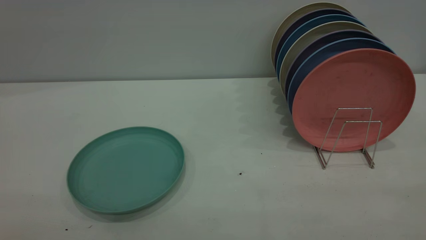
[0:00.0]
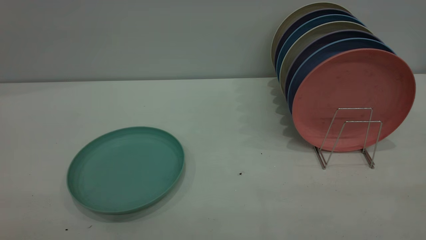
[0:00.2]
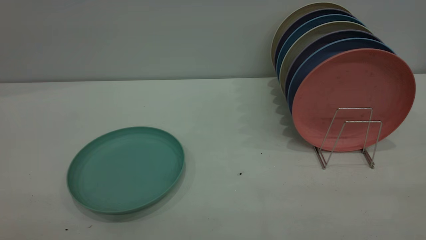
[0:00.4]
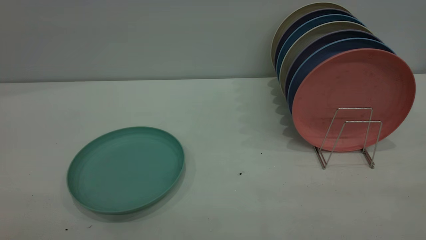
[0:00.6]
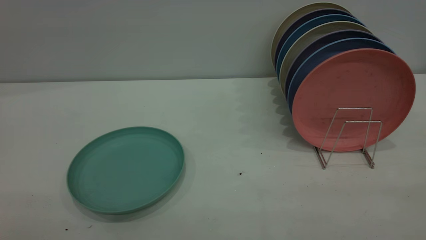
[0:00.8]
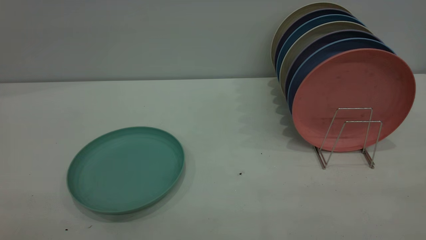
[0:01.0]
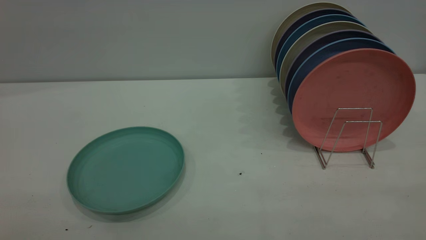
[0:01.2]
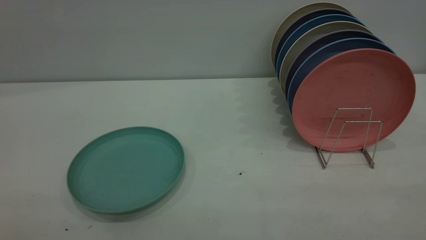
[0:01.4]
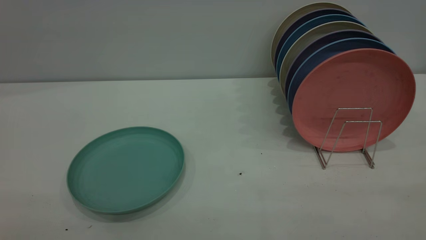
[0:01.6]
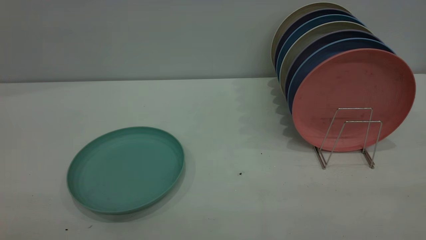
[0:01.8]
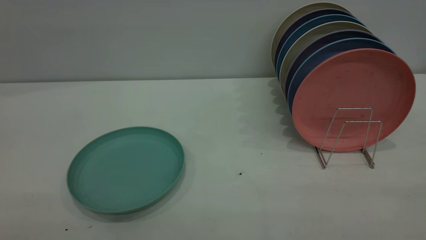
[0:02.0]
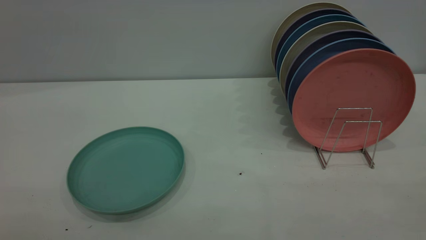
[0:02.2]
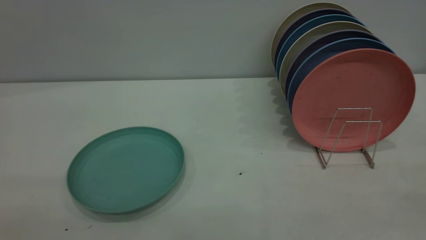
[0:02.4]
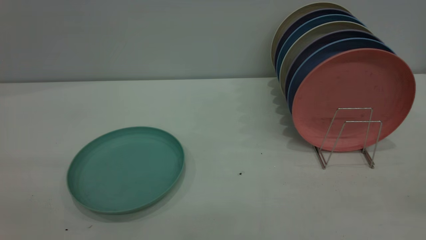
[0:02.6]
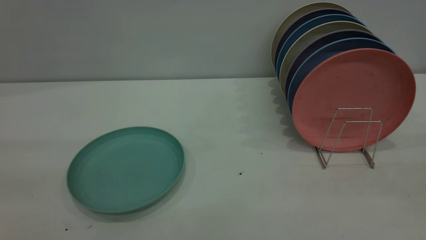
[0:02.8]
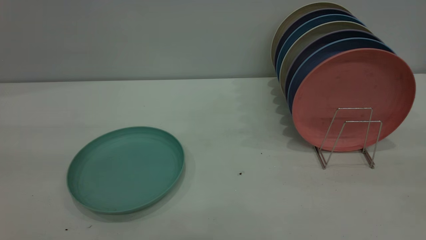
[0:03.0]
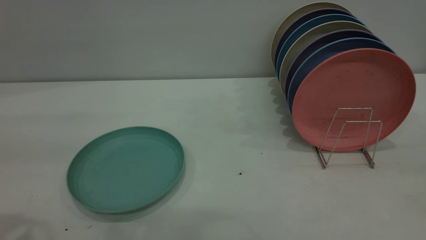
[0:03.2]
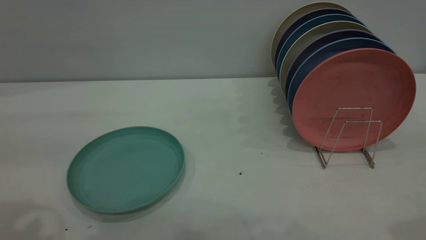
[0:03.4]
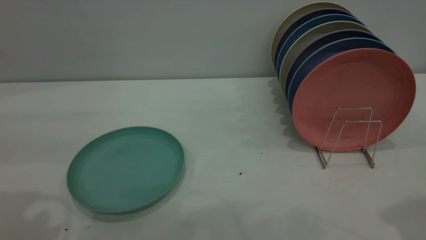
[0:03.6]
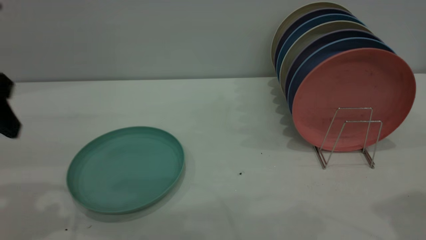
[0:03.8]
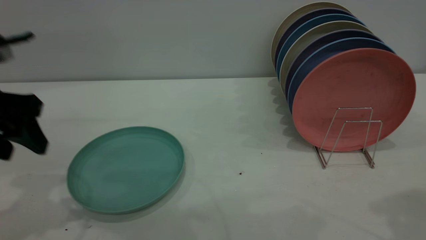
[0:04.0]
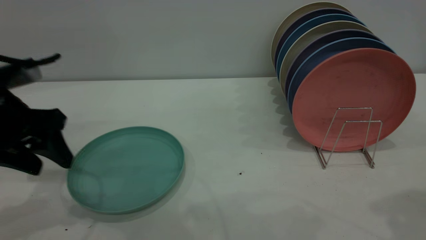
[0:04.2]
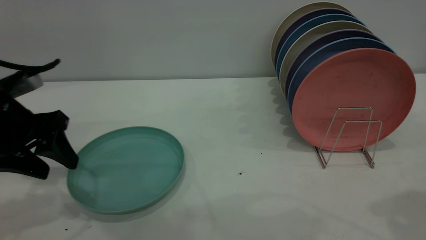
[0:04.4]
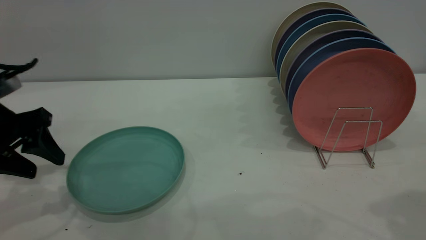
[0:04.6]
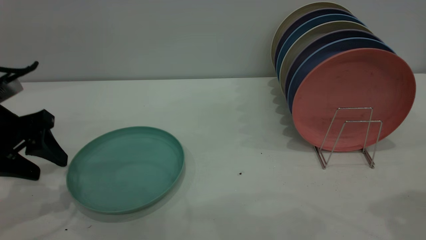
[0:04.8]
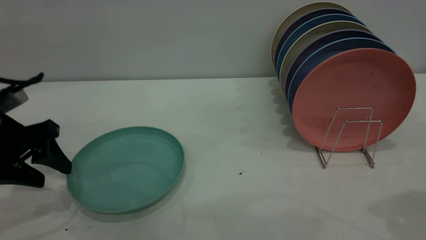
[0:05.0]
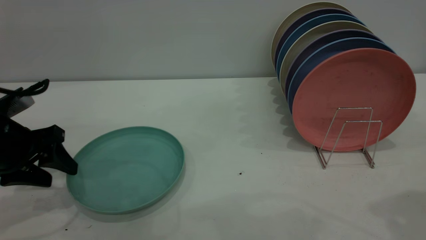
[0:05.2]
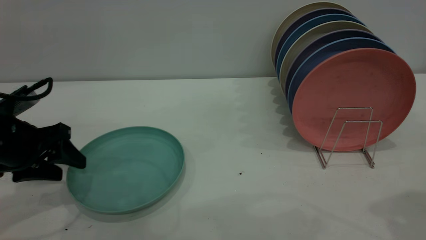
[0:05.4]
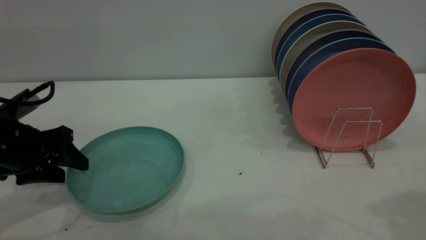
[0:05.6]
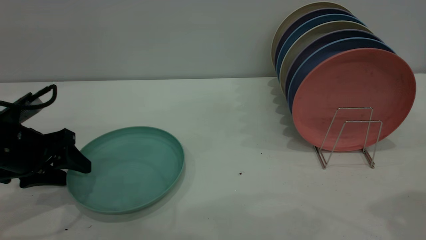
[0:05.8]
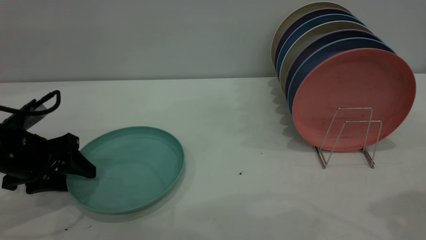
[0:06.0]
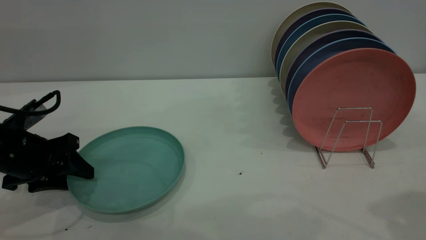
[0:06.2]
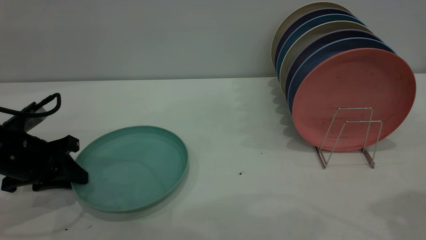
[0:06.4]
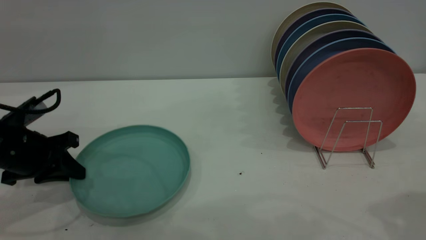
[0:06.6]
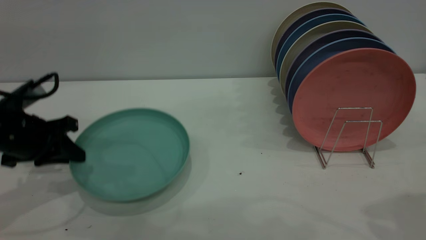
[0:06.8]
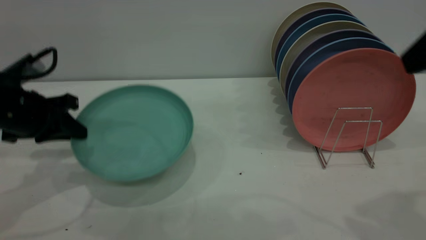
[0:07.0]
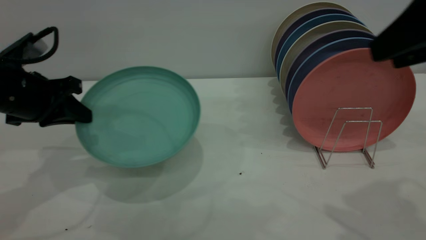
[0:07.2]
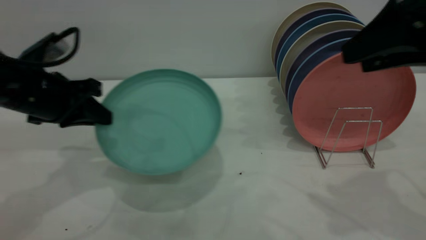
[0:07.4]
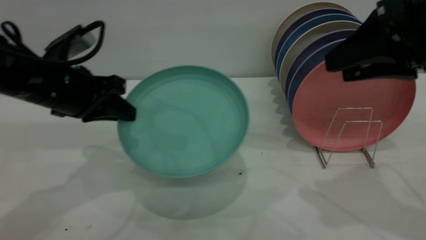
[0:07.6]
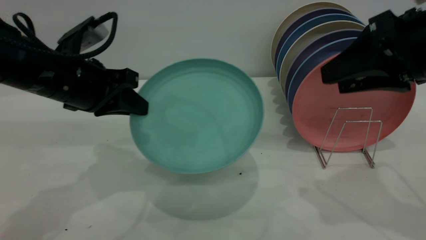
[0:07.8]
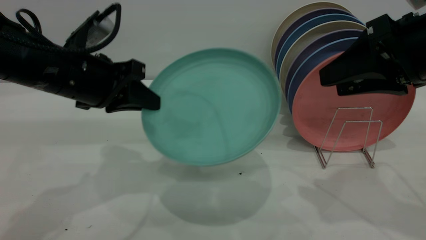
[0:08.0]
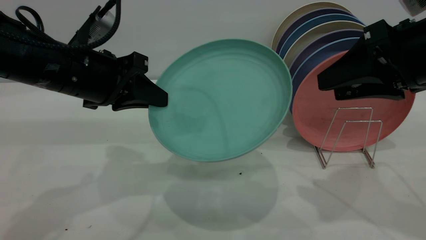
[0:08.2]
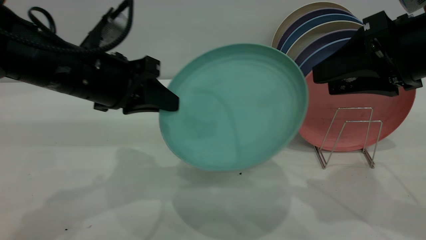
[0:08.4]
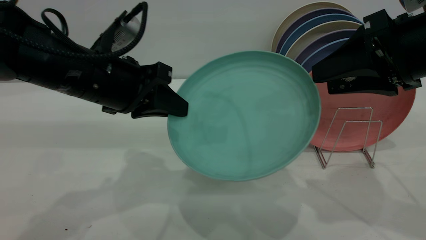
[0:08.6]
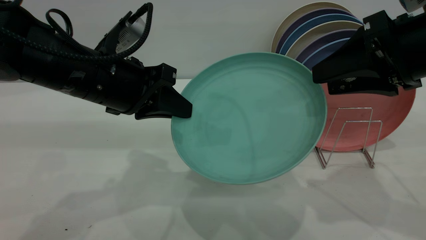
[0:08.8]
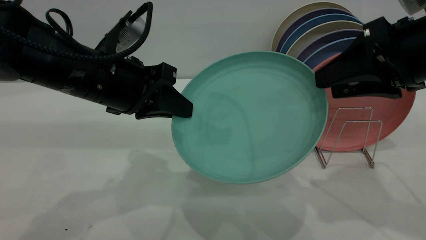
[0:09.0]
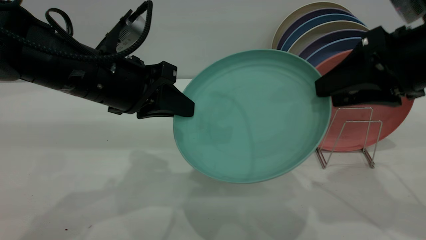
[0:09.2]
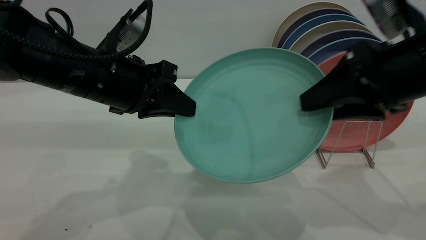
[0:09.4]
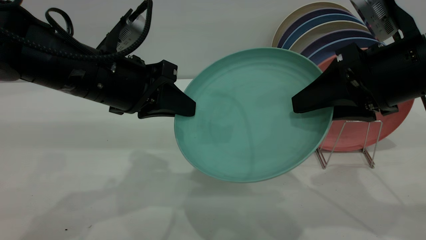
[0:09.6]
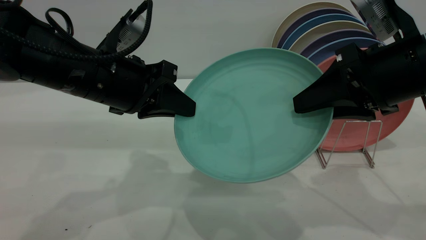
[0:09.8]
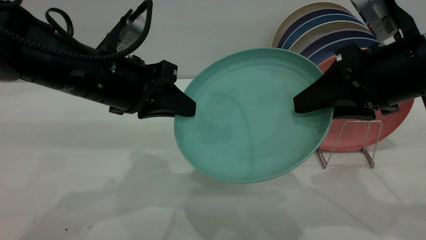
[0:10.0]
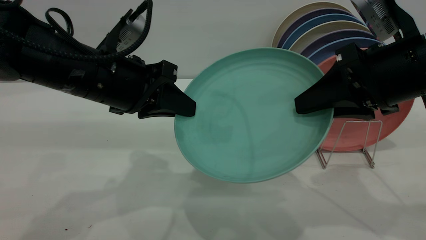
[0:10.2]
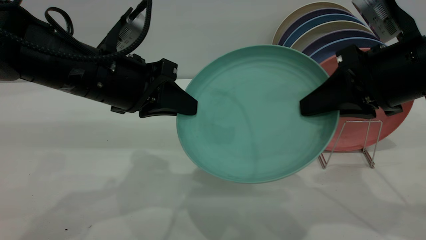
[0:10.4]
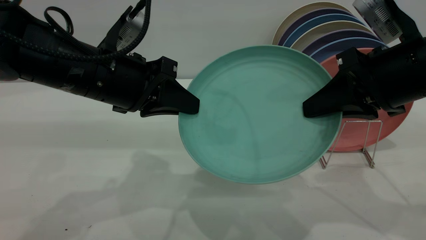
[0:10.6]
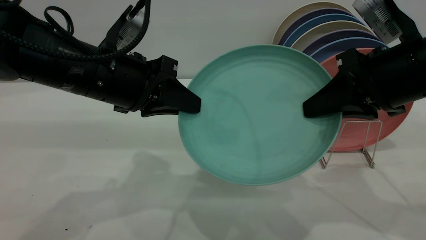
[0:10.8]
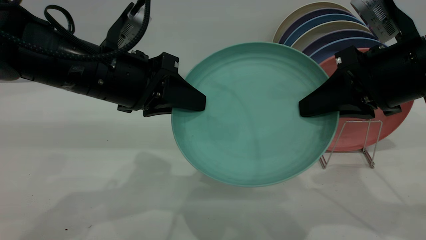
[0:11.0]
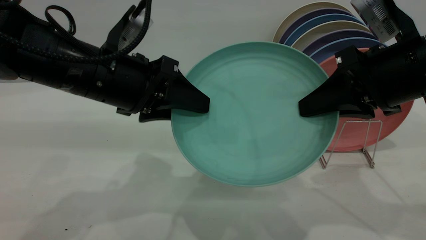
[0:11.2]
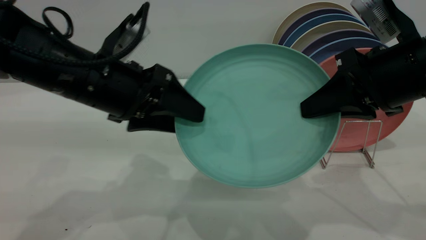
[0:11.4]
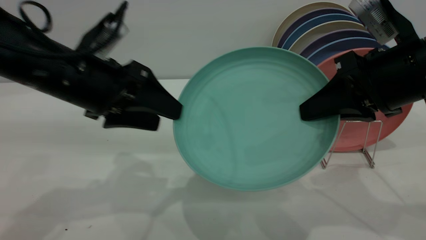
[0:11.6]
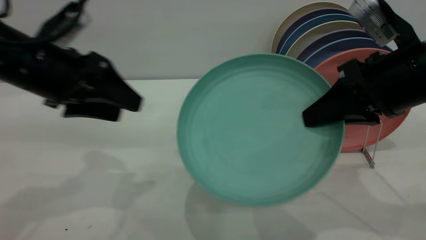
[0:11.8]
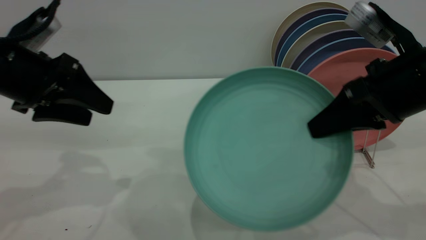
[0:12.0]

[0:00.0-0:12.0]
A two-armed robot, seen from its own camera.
Task of the whole recording: the left gripper grasp the green plate, the left gripper pass the green plate to the right gripper, and the right gripper place the green plate on the plate rack.
Step, 0:00.0 to 0:06.8: Pick up the plate with the left gripper.
Step, 0:07.0 to 0:12.0: Pass the plate from the left gripper to the right gripper.
0:00.0 to 0:01.6: Both grippers stay about where they are.
0:03.0 to 0:04.4: The left gripper moves downward and forward, approximately 25 cm.
0:04.4 to 0:06.0: The left gripper is displaced downward by approximately 10 cm.
0:06.0 to 0:07.6: The right gripper goes some 10 cm forward and downward. Meanwhile the left gripper travels upward and to the right by approximately 10 cm, and closes its fingers.
0:07.6 to 0:09.0: The left gripper travels to the right by about 5 cm.
0:09.0 to 0:10.4: The right gripper closes.
0:10.4 to 0:12.0: The left gripper goes approximately 10 cm to the left, and opens.

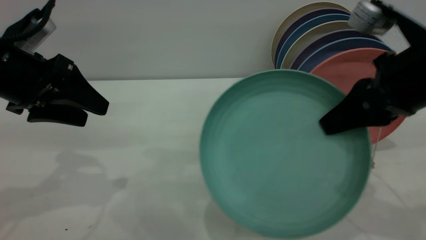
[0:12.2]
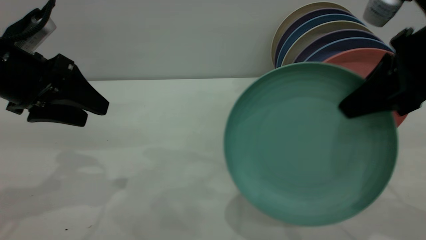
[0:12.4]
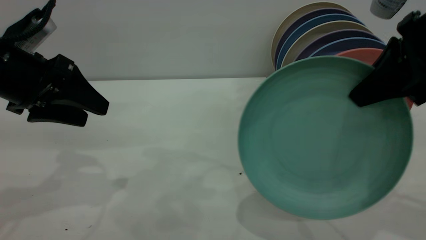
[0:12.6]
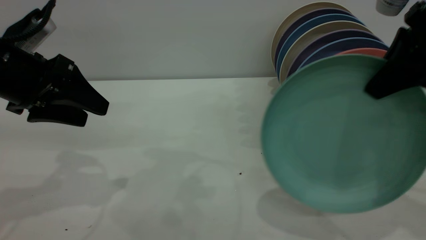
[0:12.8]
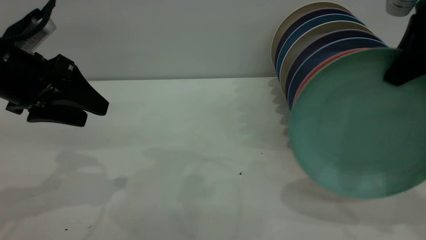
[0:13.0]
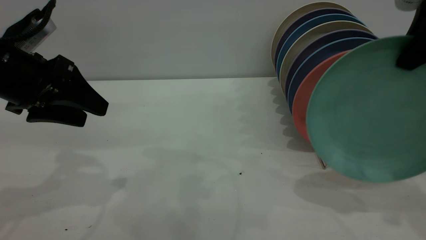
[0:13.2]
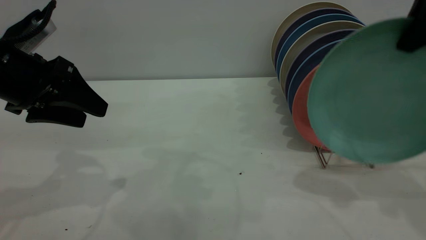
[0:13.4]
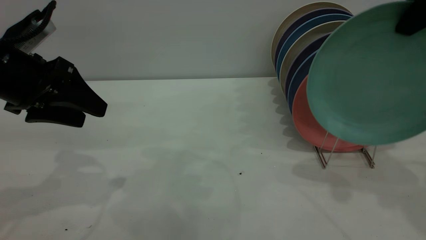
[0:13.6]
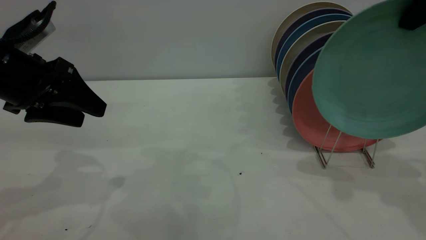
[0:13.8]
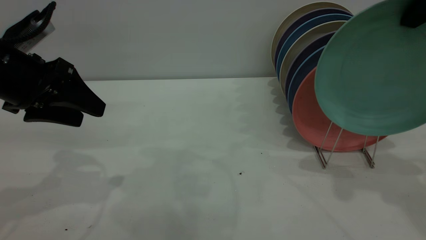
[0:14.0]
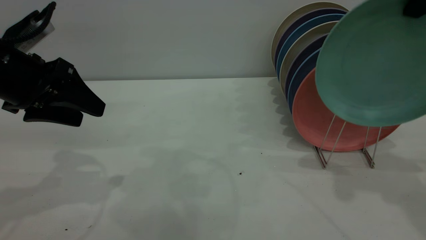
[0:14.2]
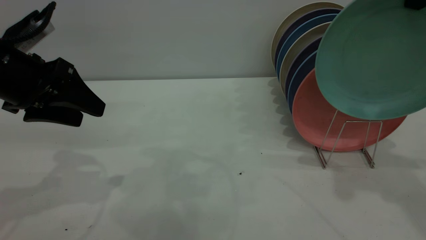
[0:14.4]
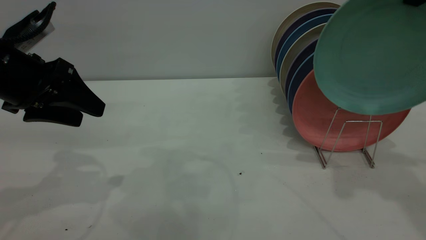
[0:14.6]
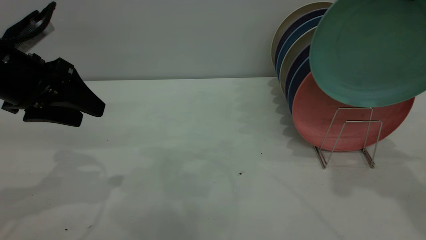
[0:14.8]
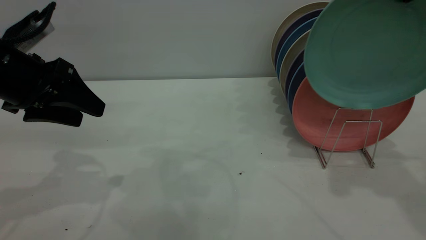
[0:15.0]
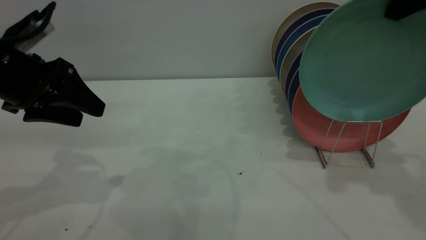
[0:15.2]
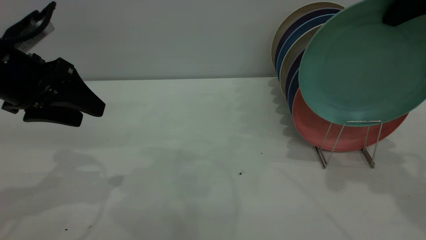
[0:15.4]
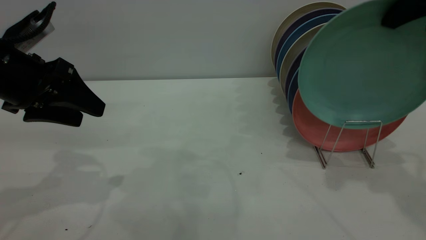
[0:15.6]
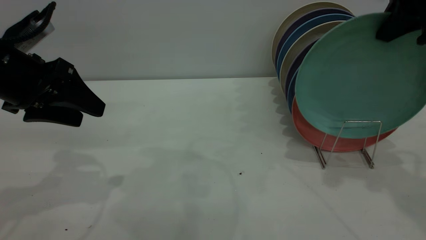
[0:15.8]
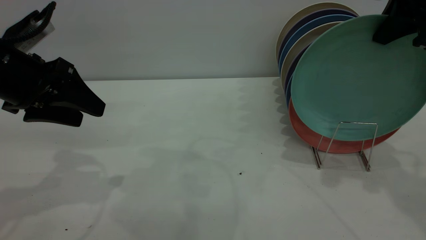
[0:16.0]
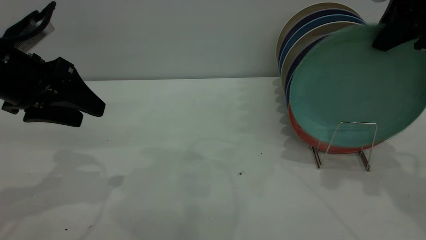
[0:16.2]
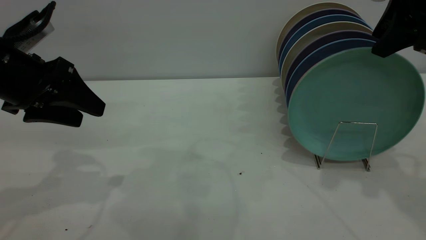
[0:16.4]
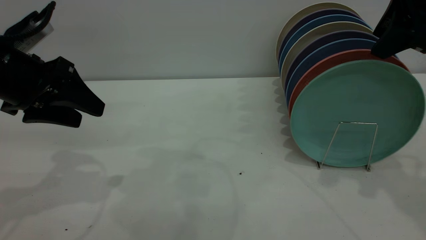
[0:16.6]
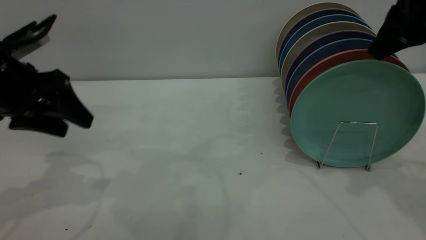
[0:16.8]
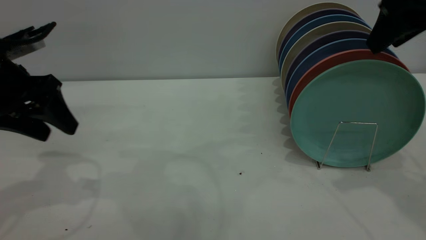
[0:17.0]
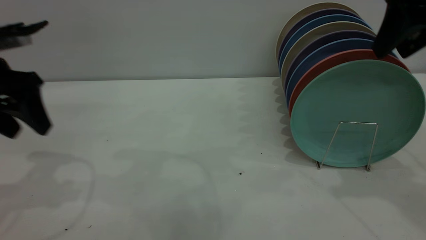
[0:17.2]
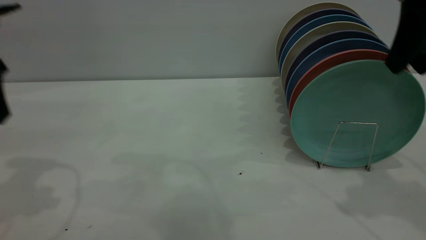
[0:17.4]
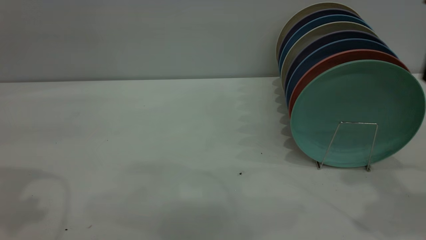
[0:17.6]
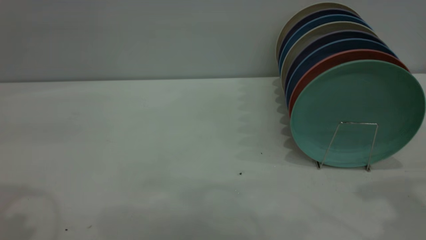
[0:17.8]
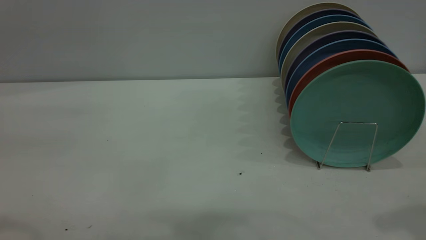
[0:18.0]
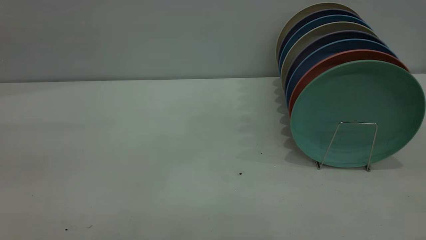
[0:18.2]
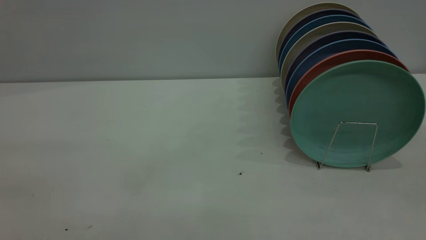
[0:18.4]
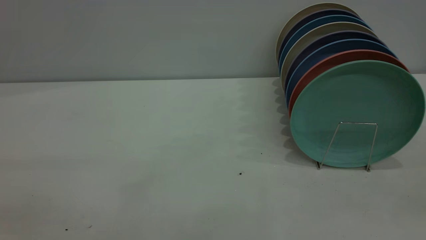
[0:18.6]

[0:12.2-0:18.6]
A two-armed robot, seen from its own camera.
Task of the whole recording: the left gripper grasp the green plate, the left gripper pass the green plate to the right gripper, and the right gripper place the green plate on the plate rack.
Step, 0:12.2 to 0:17.4: Place the plate on the shelf.
0:12.2 to 0:13.8: The right gripper heads upward and forward, covering about 10 cm.
0:13.8 to 0:15.4: The grippers move only a little.
0:15.4 to 0:17.0: The right gripper opens up.
0:17.0 to 0:18.6: The left gripper is displaced backward and upward by approximately 35 cm, while the right gripper travels backward by some 25 cm.
